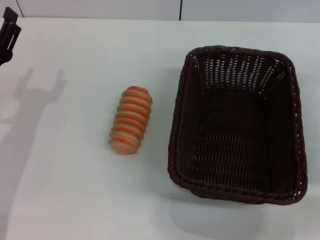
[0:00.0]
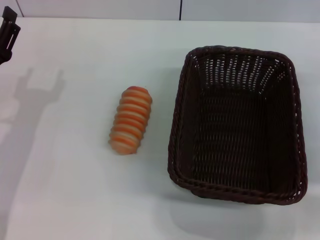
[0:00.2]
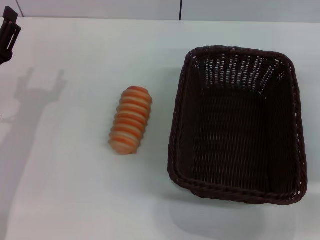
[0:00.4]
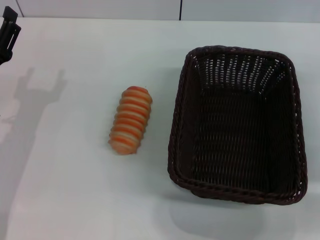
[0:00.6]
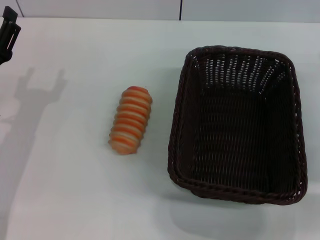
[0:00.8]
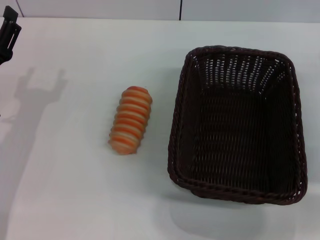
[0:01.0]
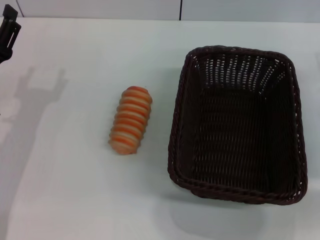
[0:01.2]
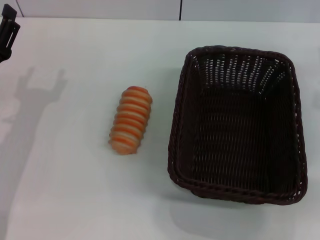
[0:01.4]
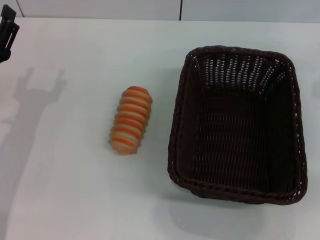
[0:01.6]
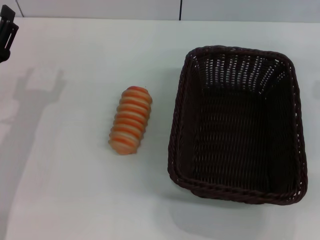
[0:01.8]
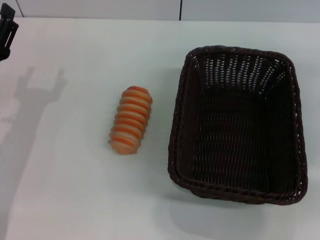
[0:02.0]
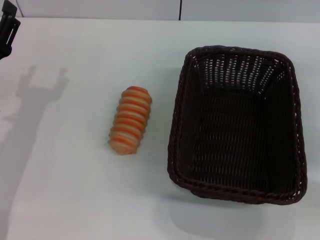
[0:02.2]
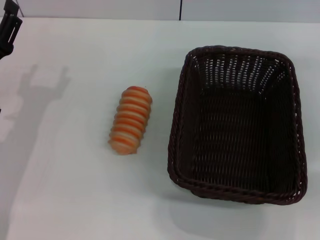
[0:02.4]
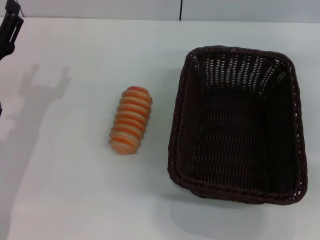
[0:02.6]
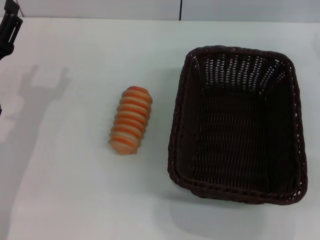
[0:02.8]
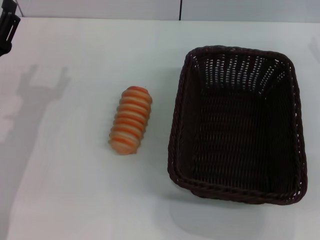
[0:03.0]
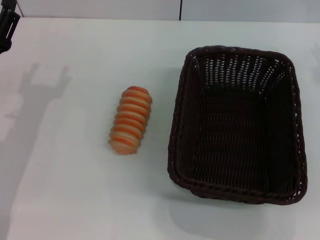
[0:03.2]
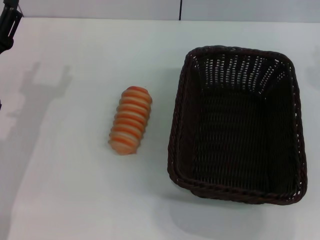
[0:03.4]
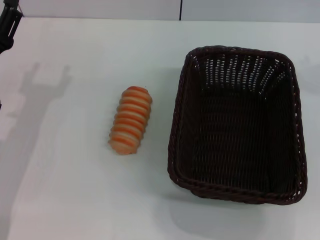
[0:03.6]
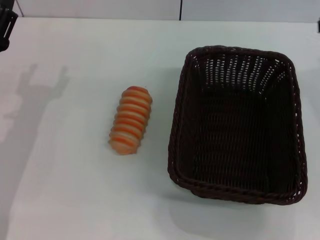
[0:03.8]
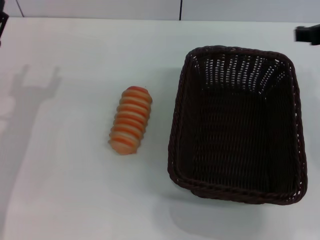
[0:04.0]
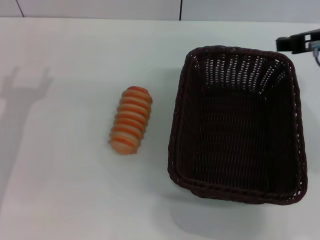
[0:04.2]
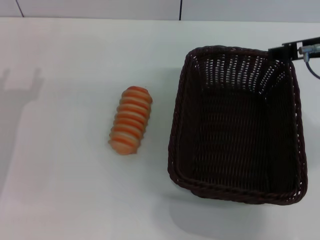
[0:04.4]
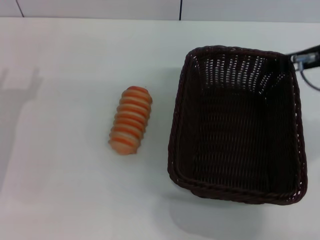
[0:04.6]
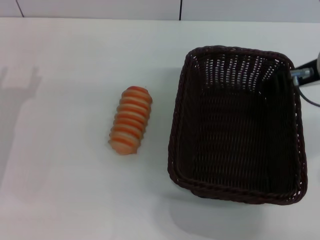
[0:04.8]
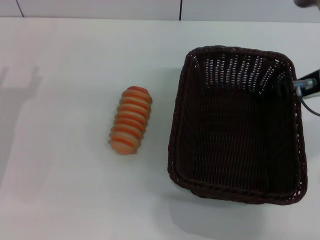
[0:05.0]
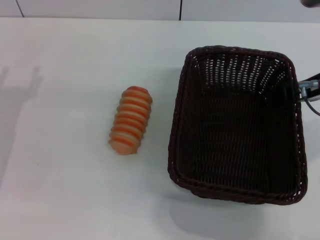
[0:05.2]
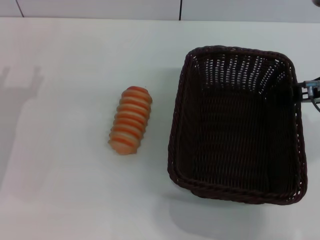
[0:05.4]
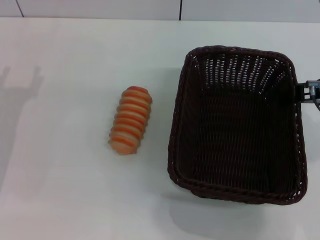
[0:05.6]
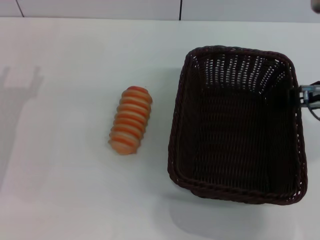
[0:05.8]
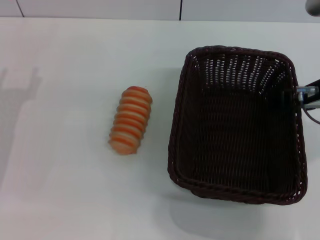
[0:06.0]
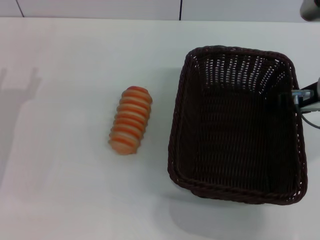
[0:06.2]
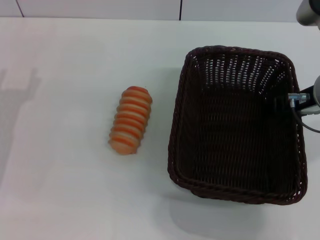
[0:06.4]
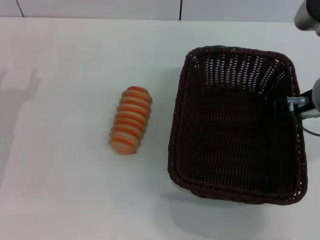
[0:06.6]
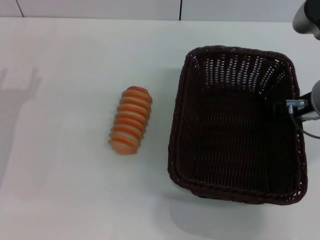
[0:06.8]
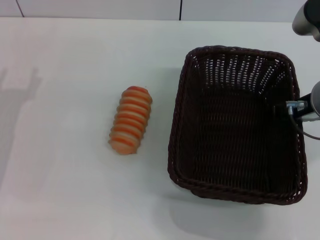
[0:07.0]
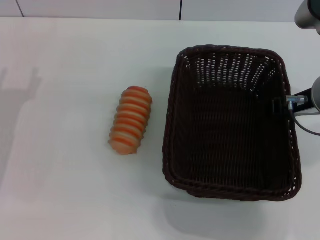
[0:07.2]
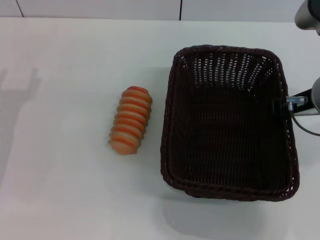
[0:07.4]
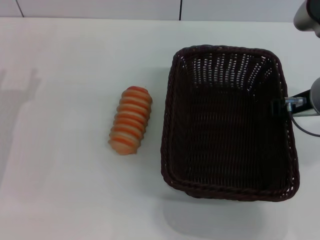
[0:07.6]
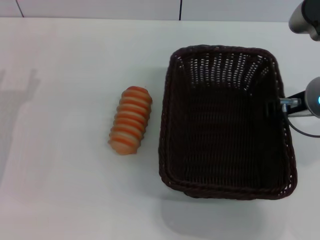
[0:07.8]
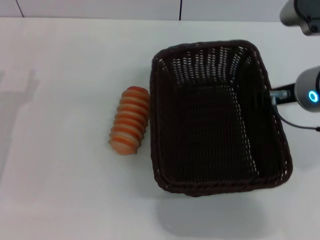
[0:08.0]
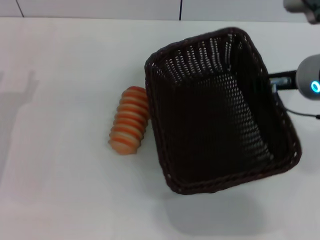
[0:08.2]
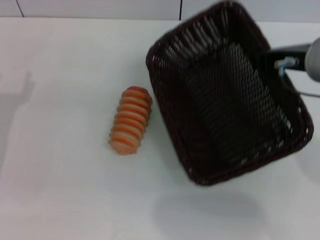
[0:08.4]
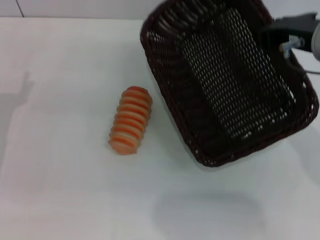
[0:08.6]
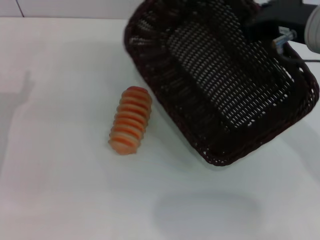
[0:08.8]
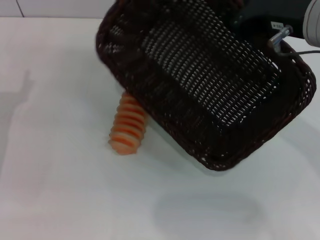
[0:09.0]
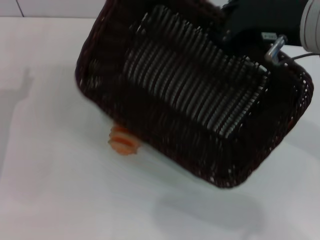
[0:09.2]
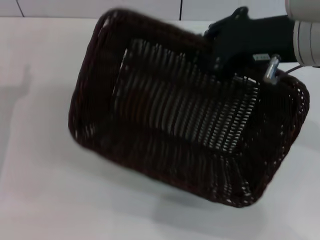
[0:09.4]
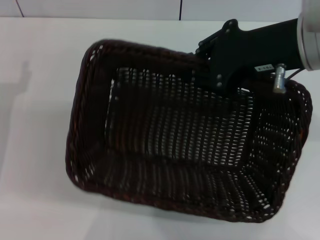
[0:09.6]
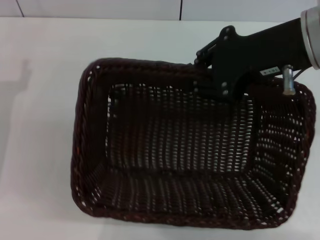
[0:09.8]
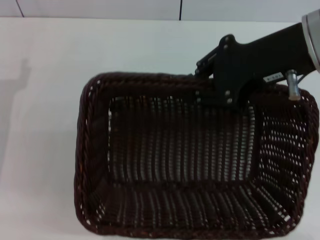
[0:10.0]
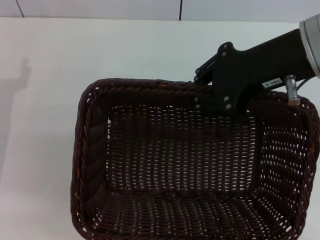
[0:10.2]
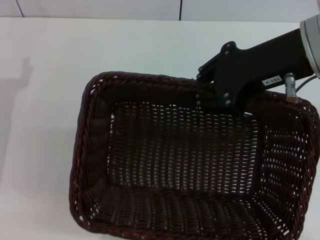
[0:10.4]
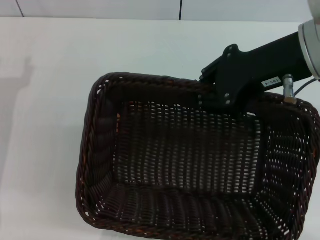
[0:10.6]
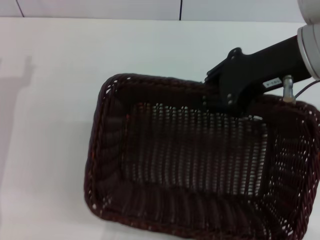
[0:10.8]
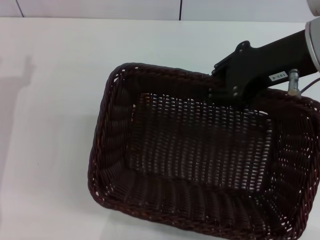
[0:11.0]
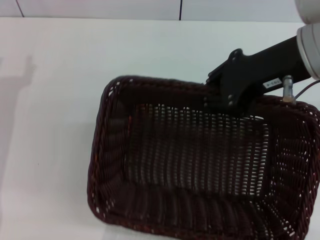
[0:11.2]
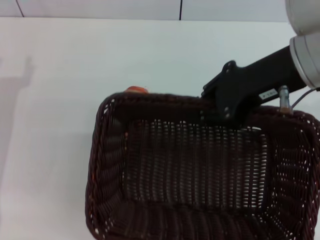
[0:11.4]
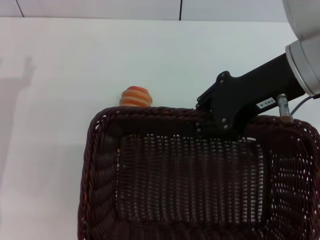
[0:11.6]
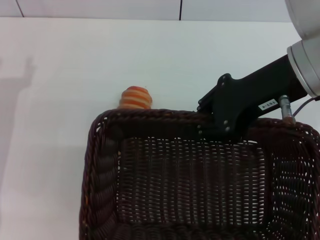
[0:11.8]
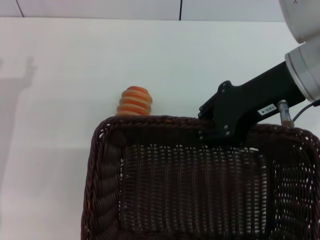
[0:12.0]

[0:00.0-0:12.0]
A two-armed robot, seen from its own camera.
Step, 0:00.0 to 0:08.6: Pick up the dark basket with the right gripper.
0:03.0 to 0:04.4: The right gripper goes approximately 15 cm to the left and backward.
0:04.4 to 0:06.0: The grippers stay close to where they were, moving slightly.
0:06.0 to 0:07.6: The right gripper closes up.
0:07.6 to 0:09.0: The right gripper moves upward, approximately 5 cm.

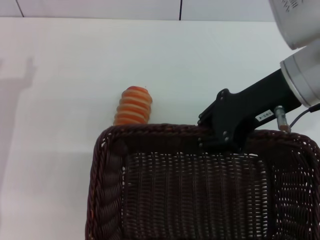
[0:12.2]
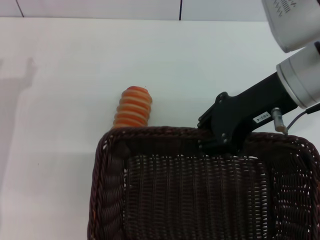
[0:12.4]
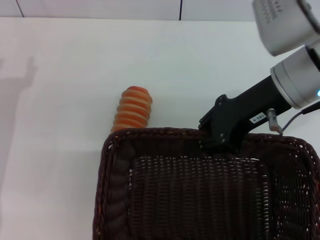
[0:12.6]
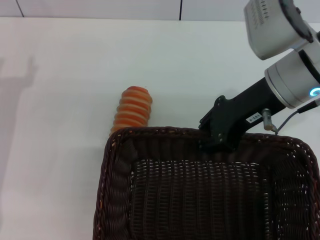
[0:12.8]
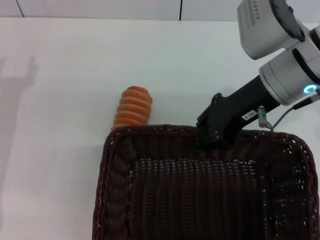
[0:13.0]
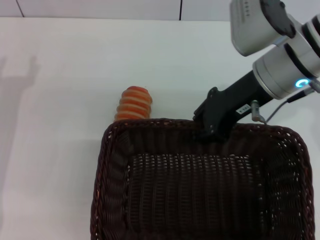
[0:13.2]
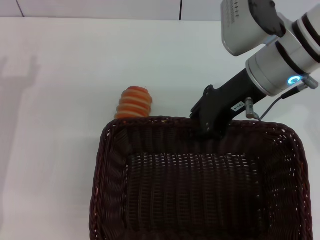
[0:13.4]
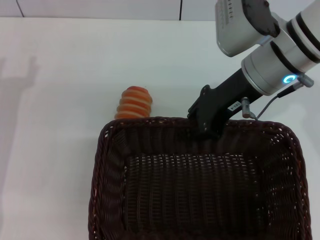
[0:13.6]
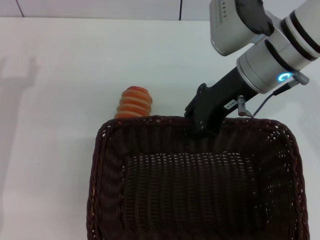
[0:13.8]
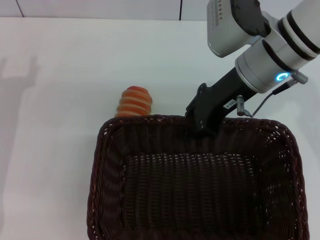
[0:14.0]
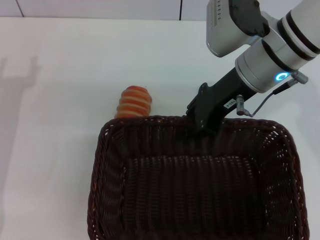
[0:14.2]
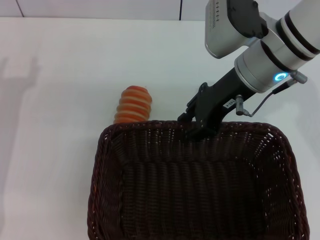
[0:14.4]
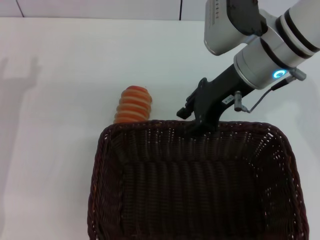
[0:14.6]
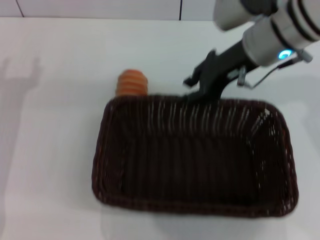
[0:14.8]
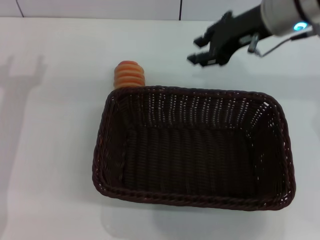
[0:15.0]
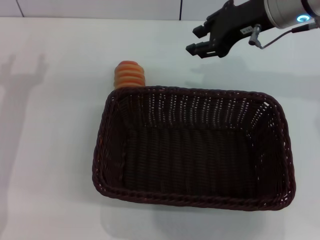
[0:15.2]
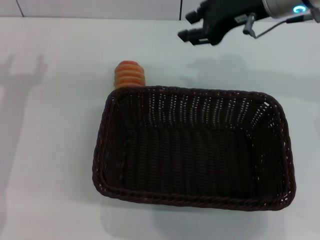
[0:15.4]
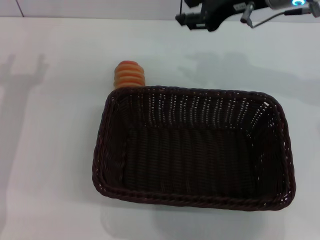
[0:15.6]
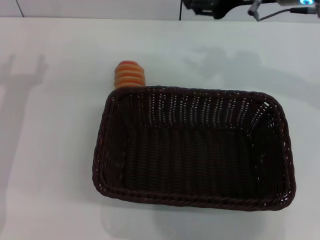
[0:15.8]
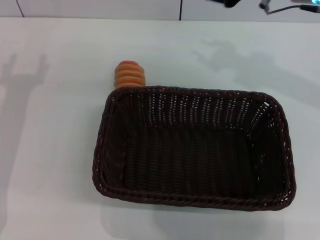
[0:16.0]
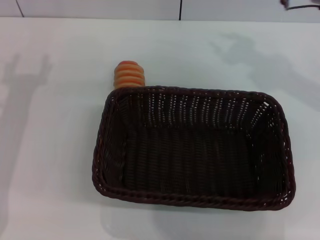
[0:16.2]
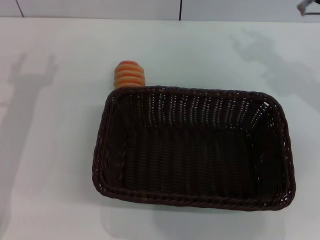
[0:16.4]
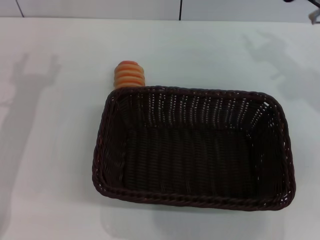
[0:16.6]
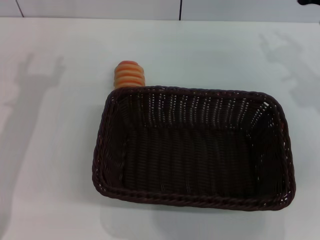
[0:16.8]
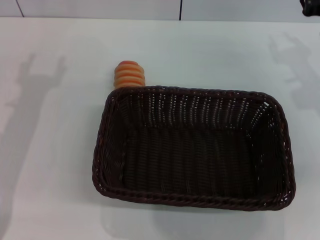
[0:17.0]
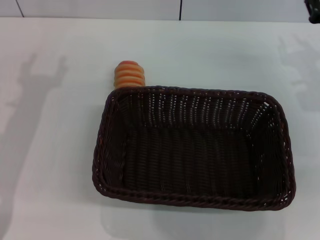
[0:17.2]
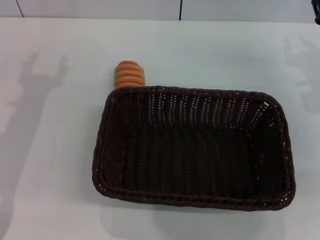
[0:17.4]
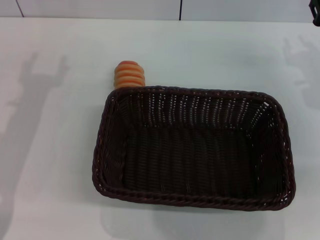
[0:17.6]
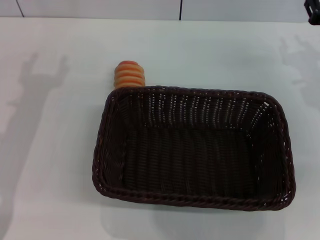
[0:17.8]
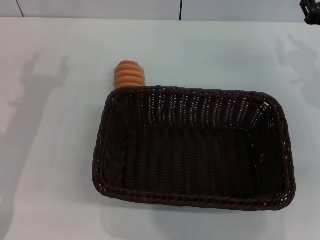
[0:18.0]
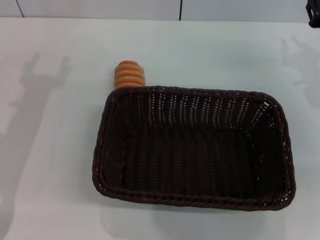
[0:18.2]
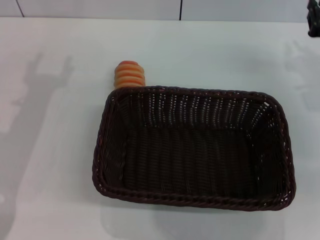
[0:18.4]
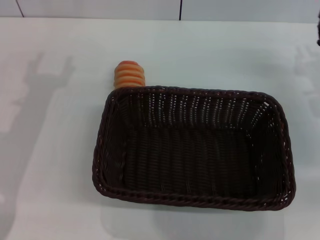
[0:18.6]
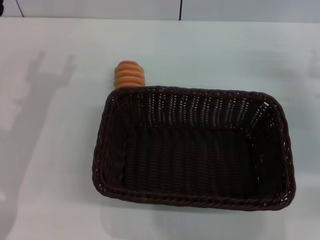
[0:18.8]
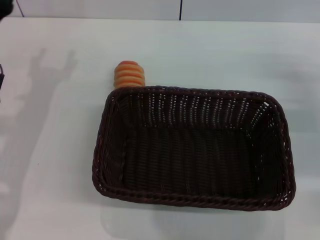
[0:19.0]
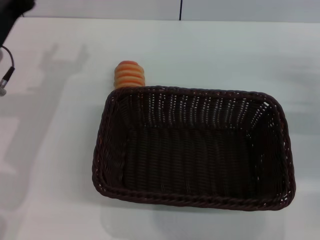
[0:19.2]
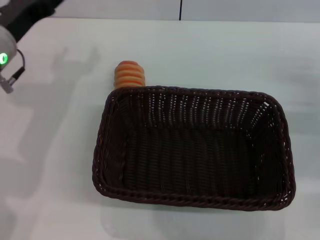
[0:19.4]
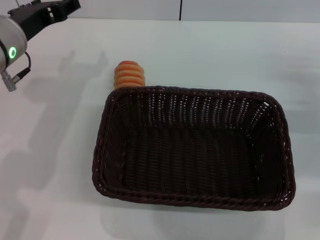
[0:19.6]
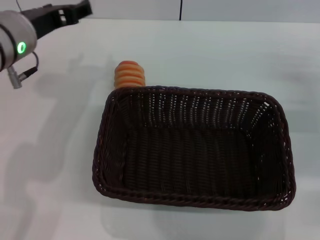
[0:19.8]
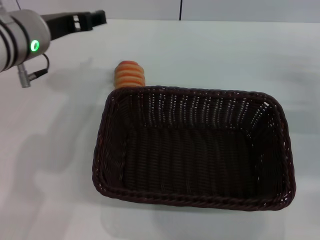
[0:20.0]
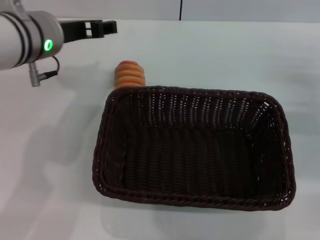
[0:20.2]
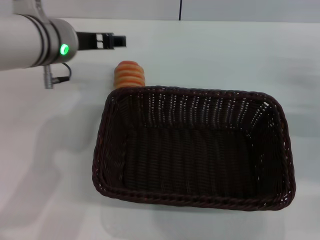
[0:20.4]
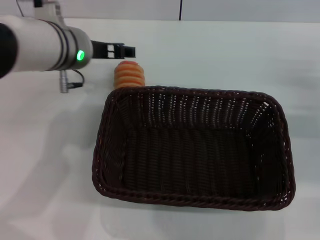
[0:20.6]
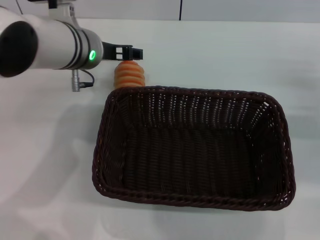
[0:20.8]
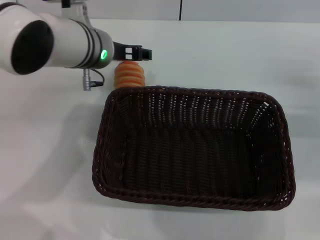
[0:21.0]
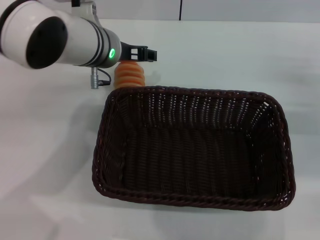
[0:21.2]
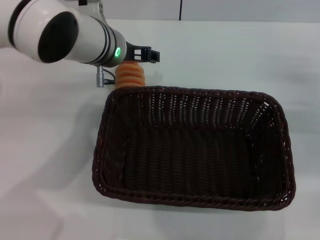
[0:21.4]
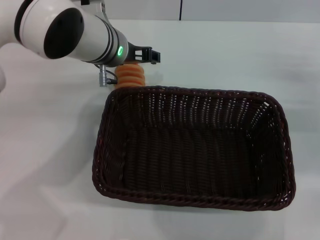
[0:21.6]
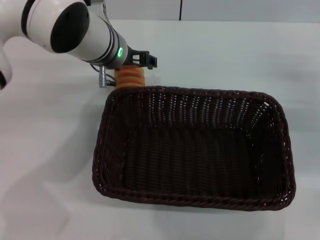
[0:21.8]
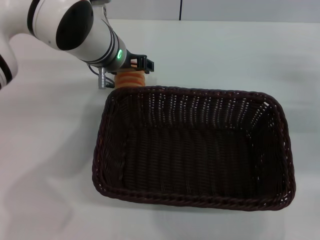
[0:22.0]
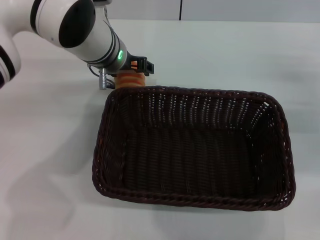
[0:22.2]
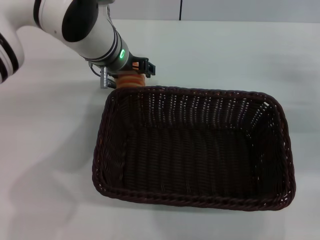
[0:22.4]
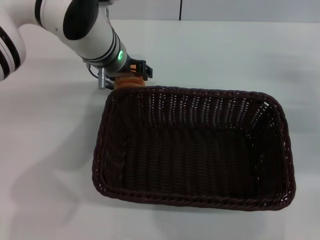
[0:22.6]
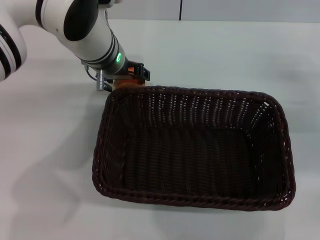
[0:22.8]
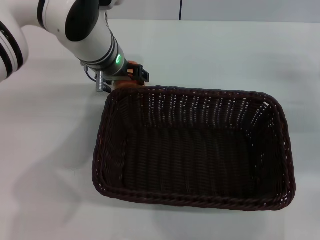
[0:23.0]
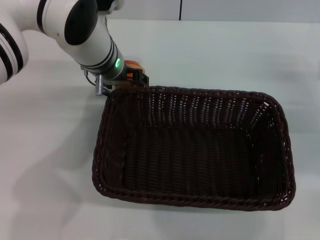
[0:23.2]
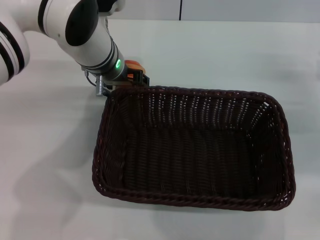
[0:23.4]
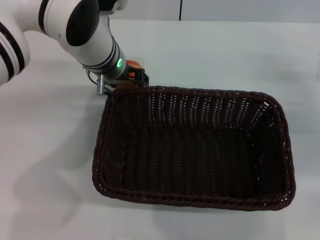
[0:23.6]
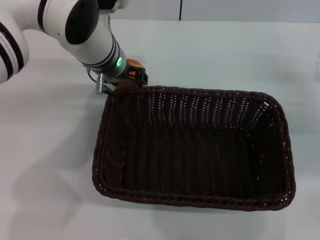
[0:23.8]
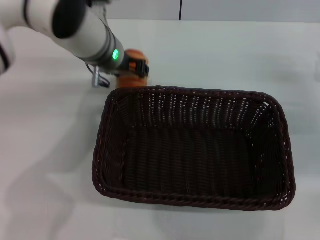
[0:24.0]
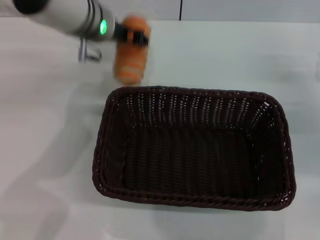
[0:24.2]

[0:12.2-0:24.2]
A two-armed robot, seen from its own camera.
Step, 0:12.2 to 0:14.8: Place the dark basket in the center of view with the right gripper.
Step, 0:15.0 to 0:24.0: Pick up the long bread with the left gripper.
0:12.2 to 0:13.8: The right gripper ends up approximately 5 cm from where it was.
0:13.8 to 0:15.2: The right gripper shifts by roughly 5 cm, and opens its fingers.
0:15.2 to 0:16.6: The right gripper heads to the right and downward, covering about 15 cm.
0:18.2 to 0:19.8: The right gripper ends up about 5 cm from where it was. Meanwhile the left gripper heads upward and to the right, covering approximately 10 cm.
0:19.8 to 0:21.2: The left gripper moves to the right and forward, approximately 10 cm.
0:21.2 to 0:22.6: There are only small adjustments of the grippers.
0:22.6 to 0:24.2: The left gripper closes up.
